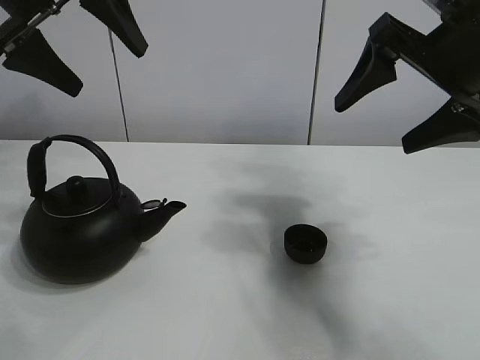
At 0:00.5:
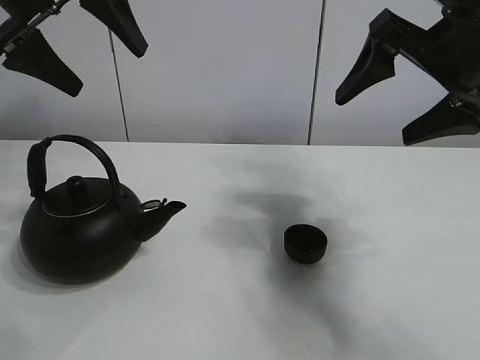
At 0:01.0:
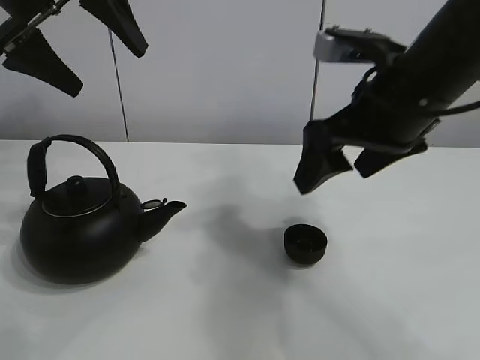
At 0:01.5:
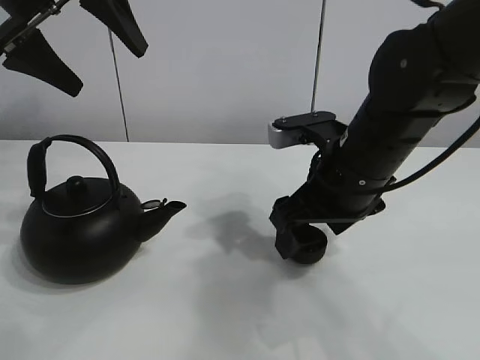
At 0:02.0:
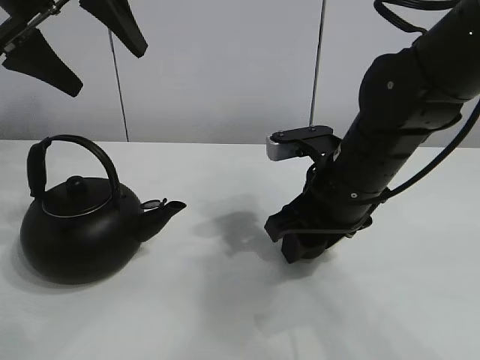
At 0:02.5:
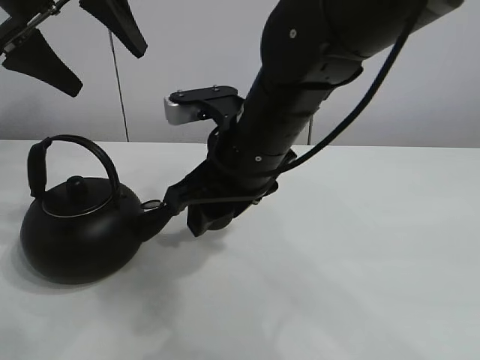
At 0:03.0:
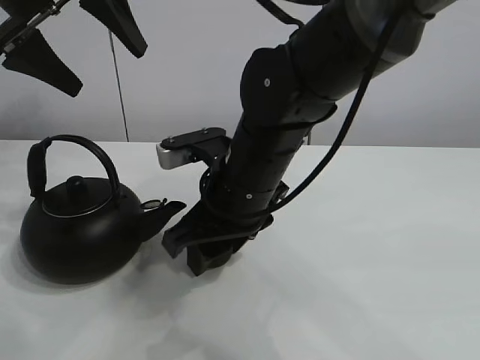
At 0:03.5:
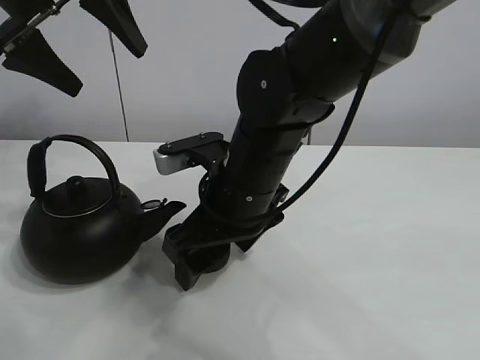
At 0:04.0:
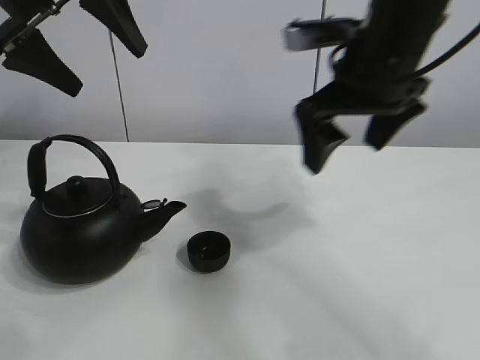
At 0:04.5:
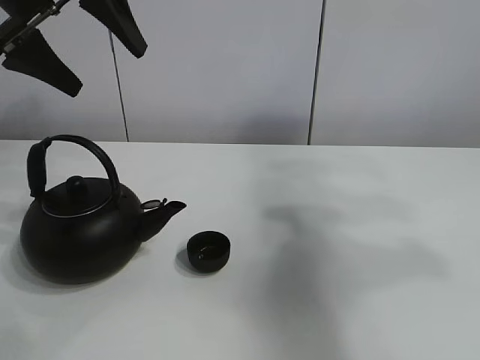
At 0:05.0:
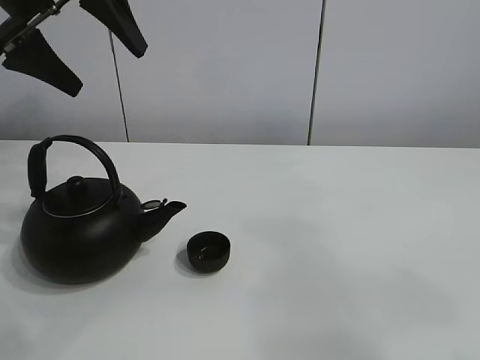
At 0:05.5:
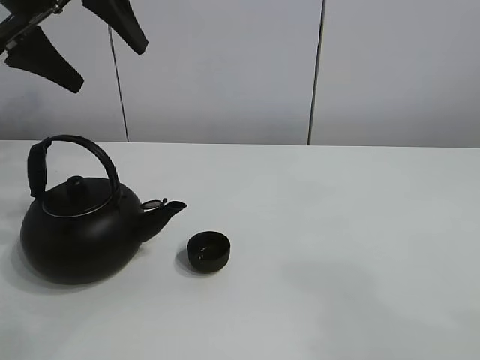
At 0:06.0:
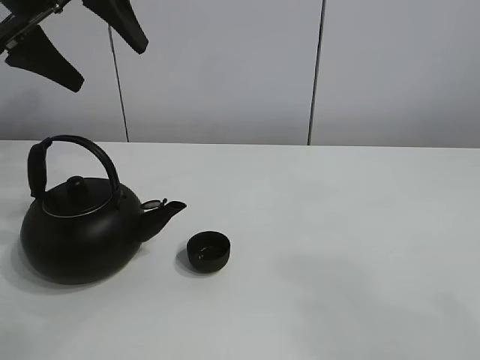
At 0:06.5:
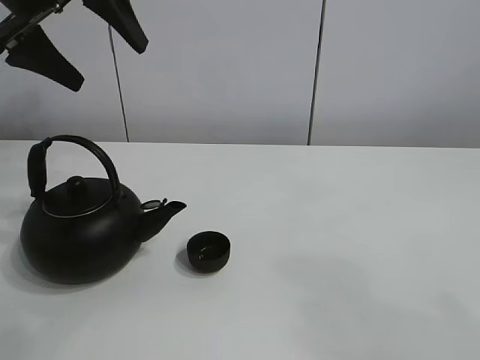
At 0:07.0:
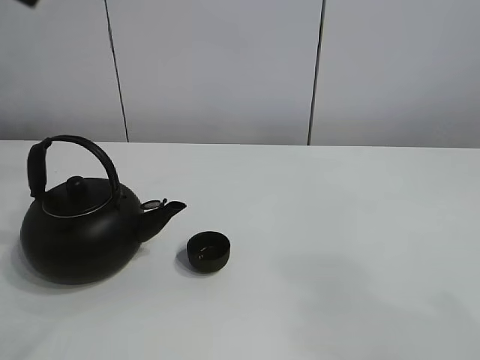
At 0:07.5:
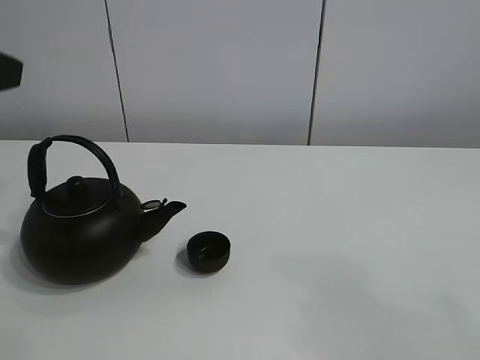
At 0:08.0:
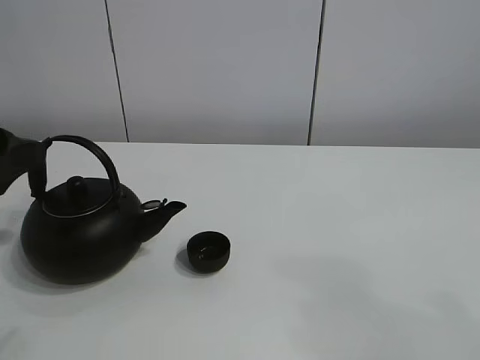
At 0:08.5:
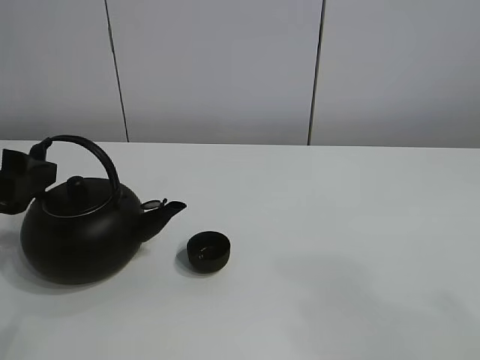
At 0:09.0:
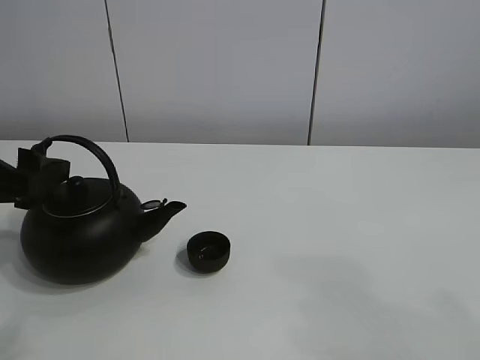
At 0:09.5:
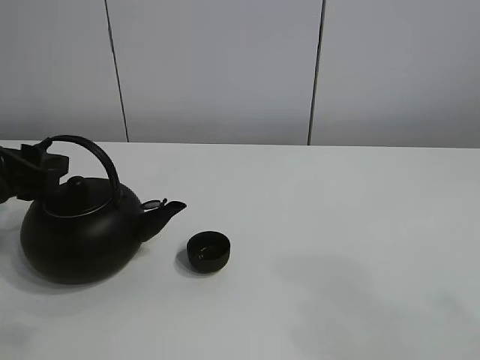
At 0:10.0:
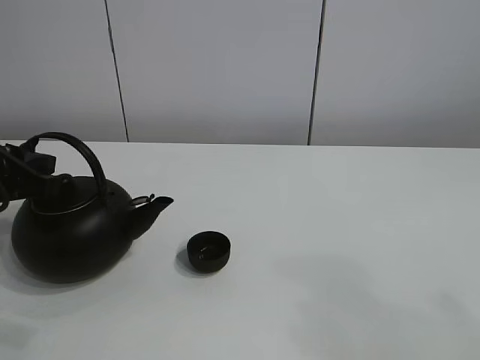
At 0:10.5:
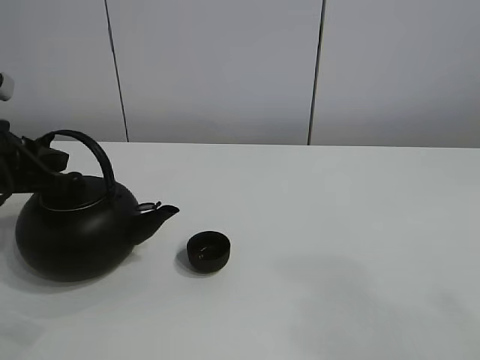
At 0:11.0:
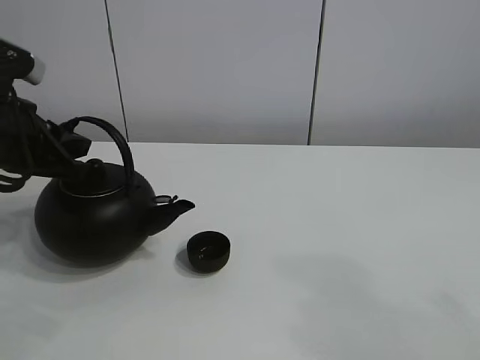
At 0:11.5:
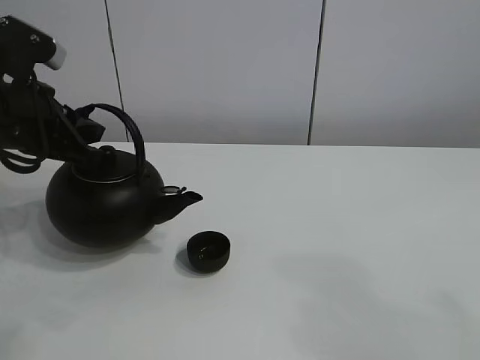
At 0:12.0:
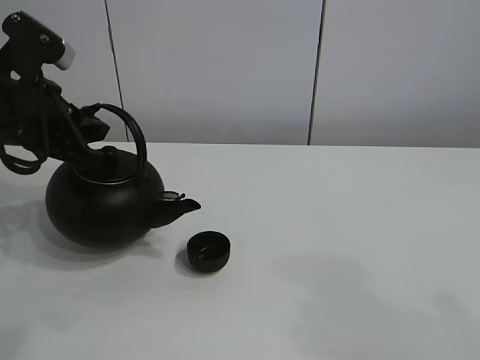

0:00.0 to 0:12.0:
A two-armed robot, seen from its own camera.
Task of the whole recording: pour tea into the teacup.
Step, 0:00.0 to 0:02.0: Pick up the teacup with the right gripper.
Step, 0:02.5 to 0:03.0: Place the teacup in the center of view with the right gripper.
Step, 0:03.5 to 0:10.5: Pick up the teapot with the left gripper.
0:02.0 to 0:04.0: The right gripper goes about 15 cm upward, reaches approximately 10 cm to the left, then returns, and opens.
0:04.0 to 0:06.0: The right gripper goes approximately 35 cm backward.
0:06.0 to 0:08.0: The left gripper heads backward and downward, covering some 20 cm.
0:08.0 to 0:10.0: The left gripper goes approximately 10 cm forward and downward, and closes up.
0:10.0 to 0:12.0: The left gripper moves some 10 cm.

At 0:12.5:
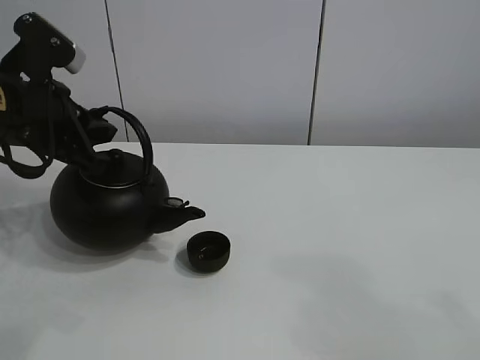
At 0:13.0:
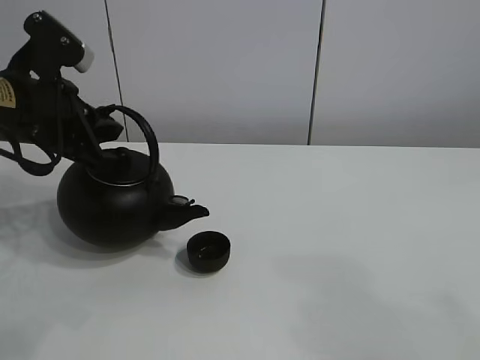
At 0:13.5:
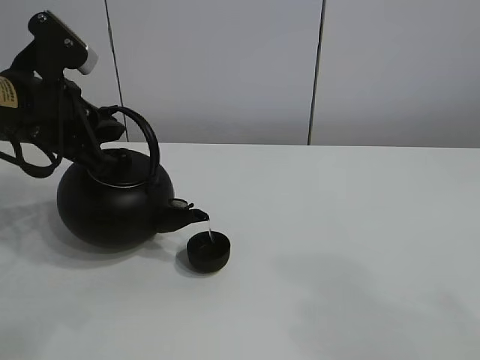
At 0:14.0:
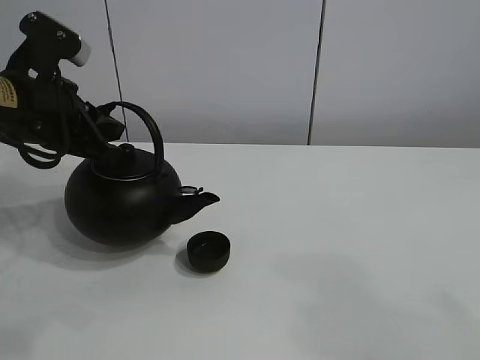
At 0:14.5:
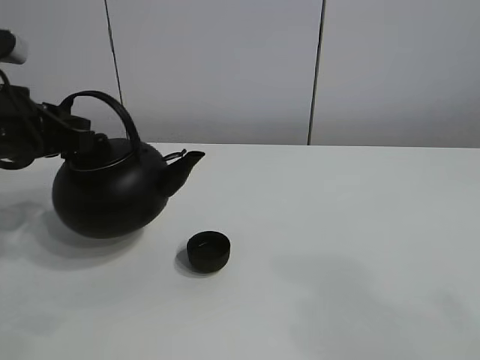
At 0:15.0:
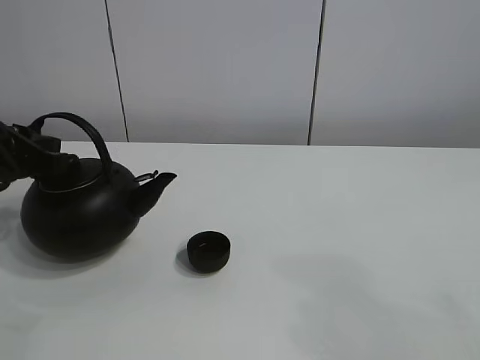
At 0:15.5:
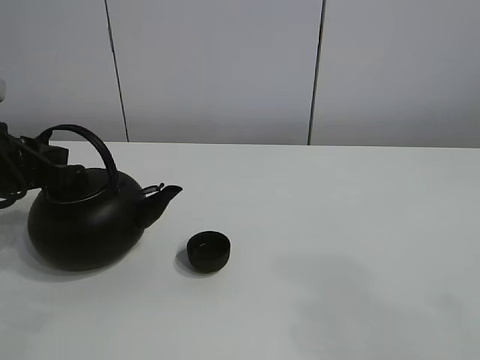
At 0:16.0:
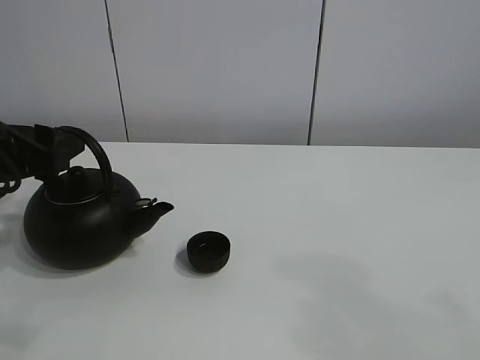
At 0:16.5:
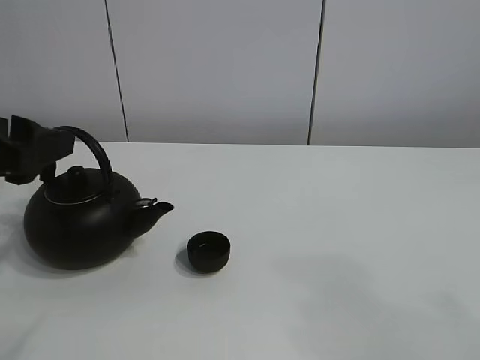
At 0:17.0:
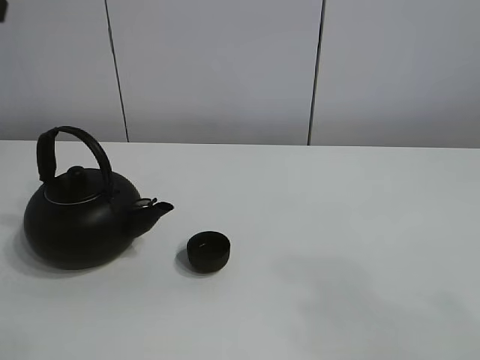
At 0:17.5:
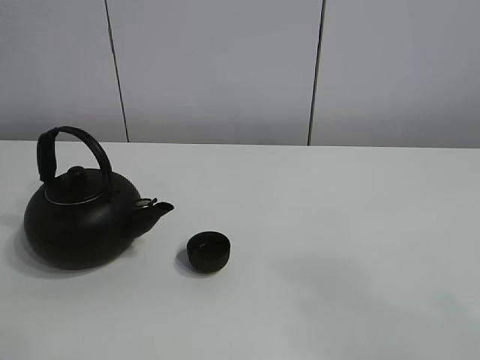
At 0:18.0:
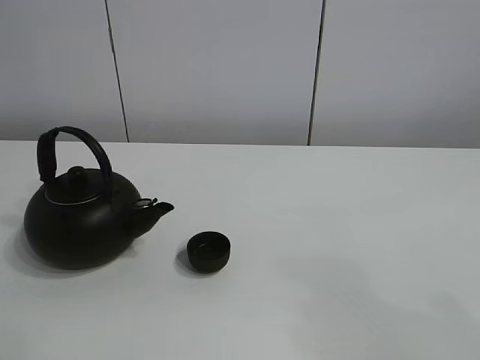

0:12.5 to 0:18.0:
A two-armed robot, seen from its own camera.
Task of the whole recording: pour tea into the teacup.
Step, 0:12.5 to 0:14.0: Pour tea into the teacup with the left gripper.
0:14.5 to 0:16.0: The left gripper opens.
0:16.0 to 0:18.0: The left gripper shifts some 35 cm backward and upward.

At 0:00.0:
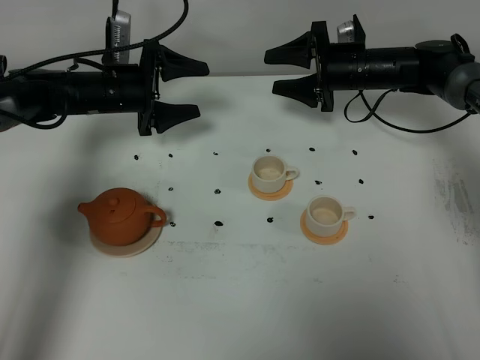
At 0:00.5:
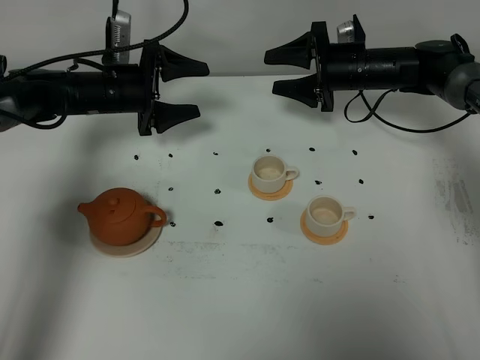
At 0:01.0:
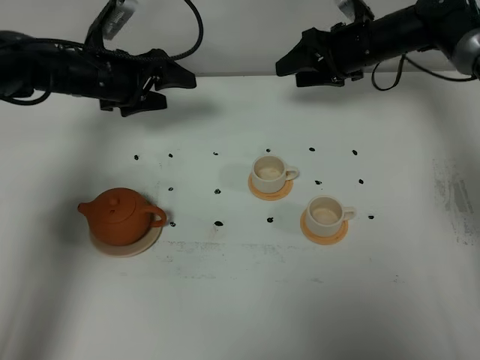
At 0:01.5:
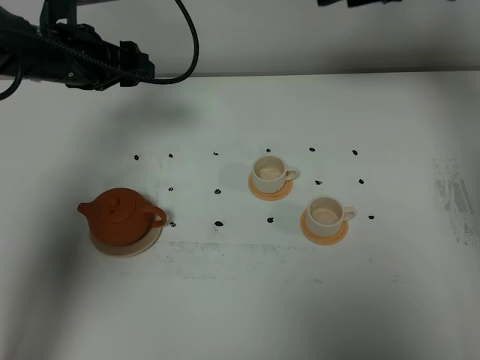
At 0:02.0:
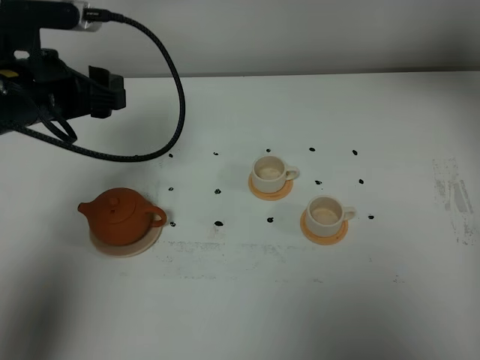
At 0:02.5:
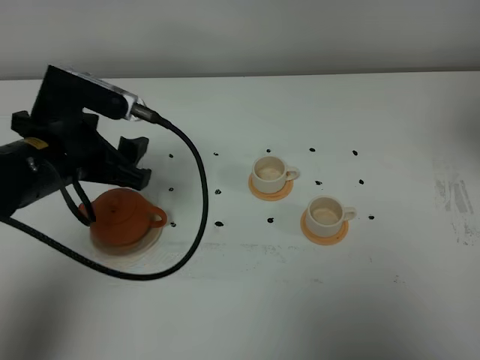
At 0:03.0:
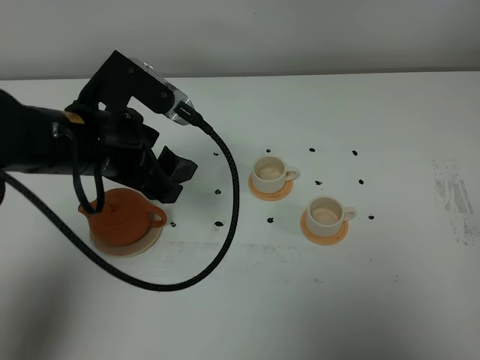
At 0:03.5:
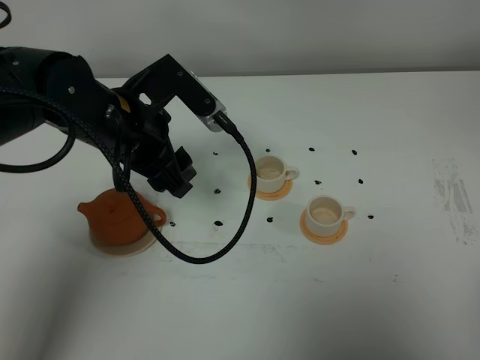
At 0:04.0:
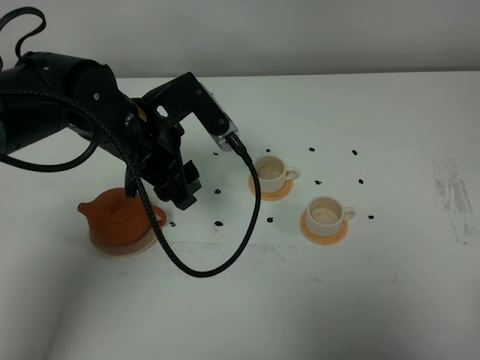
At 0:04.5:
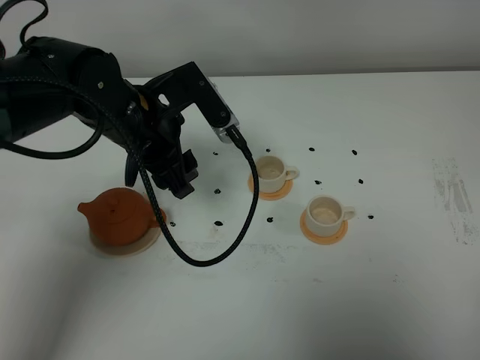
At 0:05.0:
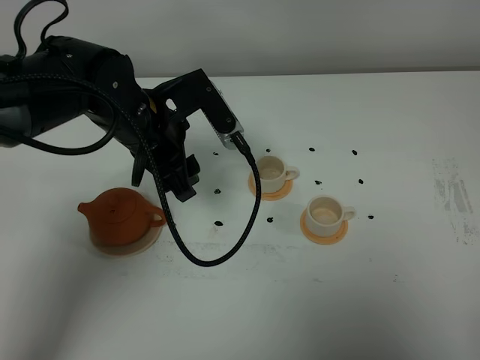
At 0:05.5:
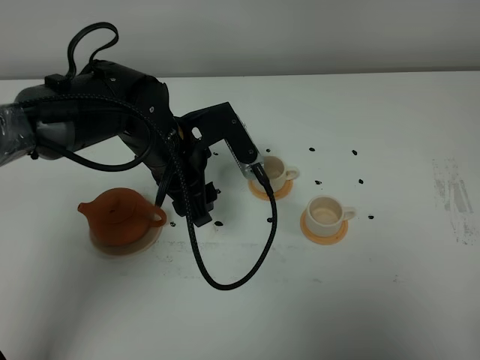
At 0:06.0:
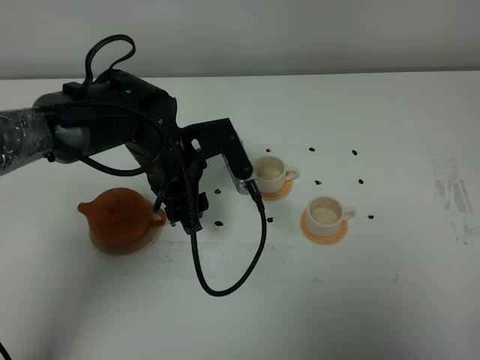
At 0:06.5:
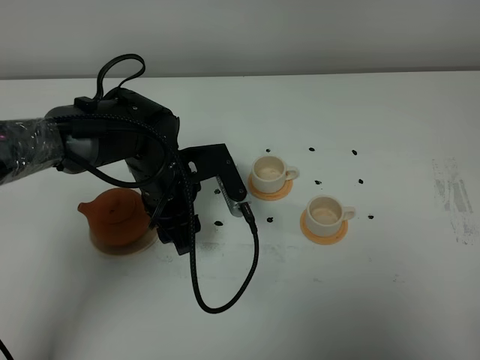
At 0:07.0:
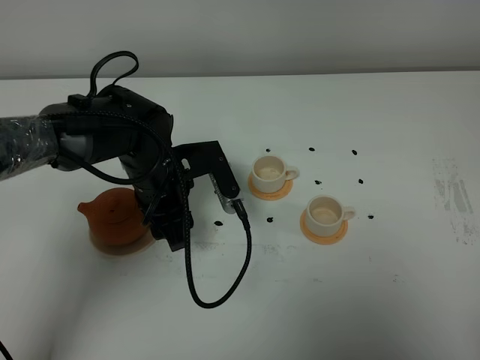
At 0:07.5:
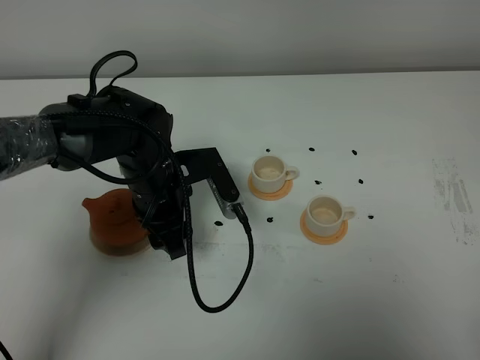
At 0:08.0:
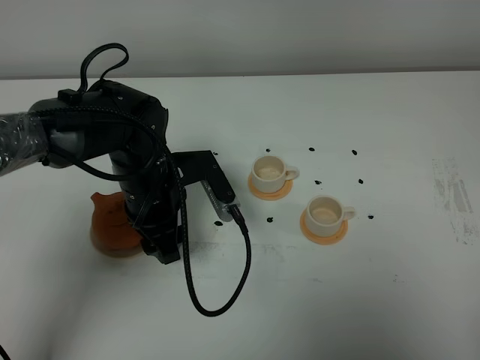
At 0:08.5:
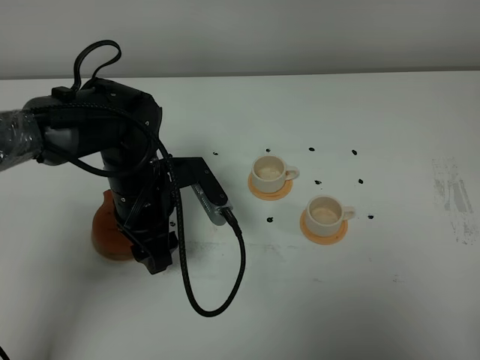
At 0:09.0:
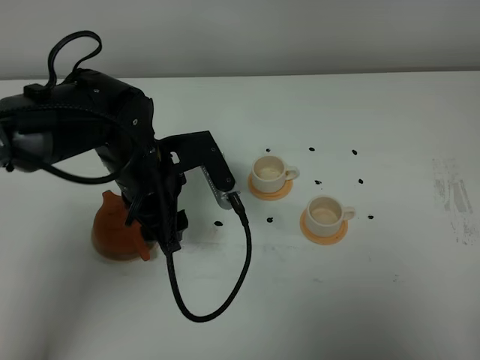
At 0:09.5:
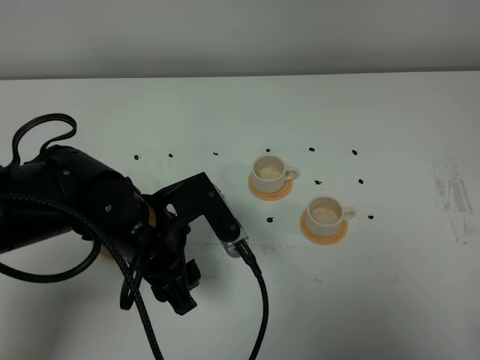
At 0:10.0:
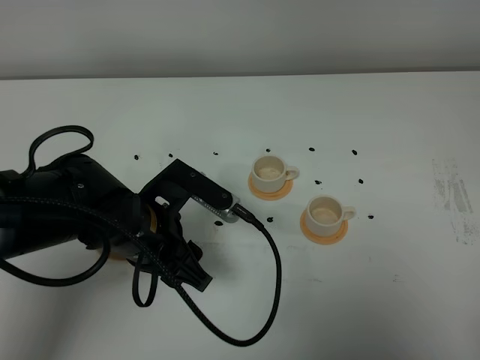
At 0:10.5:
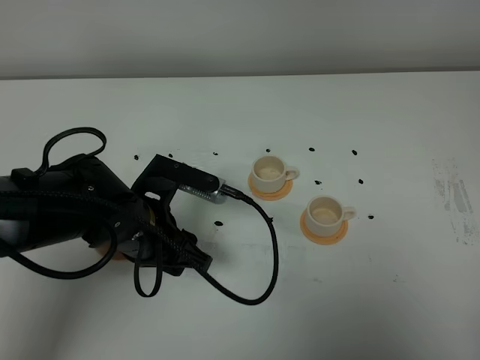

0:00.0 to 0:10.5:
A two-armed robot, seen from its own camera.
Task of the whole recording: grasp the brown teapot and pour the tea into the two white teacups one by one, put the brown teapot back in its original place.
0:00.0 to 0:02.0: The left gripper heads backward and upward, covering roughly 20 cm. Meanwhile the right gripper travels upward and backward by about 35 cm.
0:02.0 to 0:04.0: The left gripper is displaced to the right by roughly 10 cm. The right gripper shifts roughly 40 cm backward and downward.
0:04.0 to 0:06.5: The left gripper is displaced downward by approximately 10 cm.
0:06.5 to 0:08.5: There are only small adjustments of the grippers.
0:08.5 to 0:10.5: The left gripper shifts approximately 5 cm backward.
